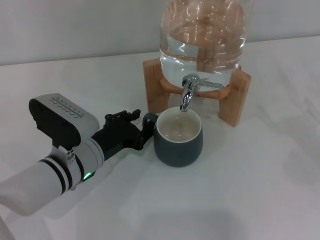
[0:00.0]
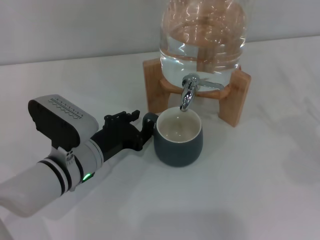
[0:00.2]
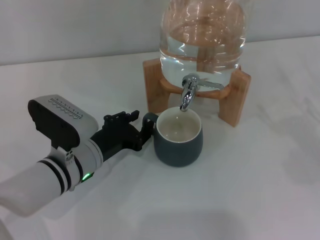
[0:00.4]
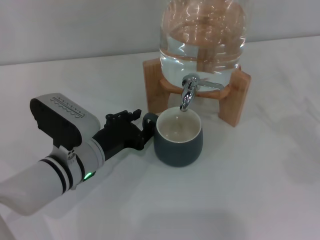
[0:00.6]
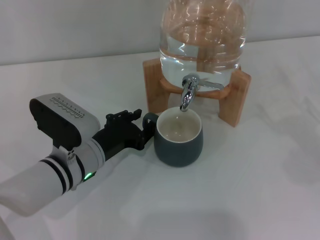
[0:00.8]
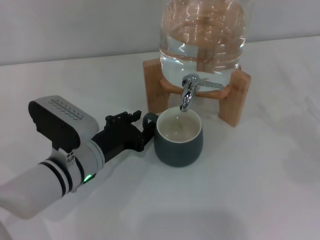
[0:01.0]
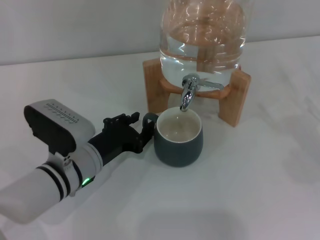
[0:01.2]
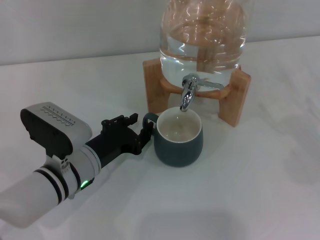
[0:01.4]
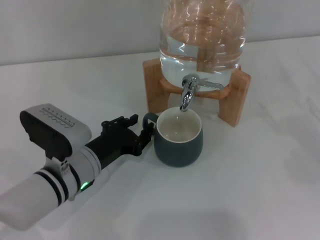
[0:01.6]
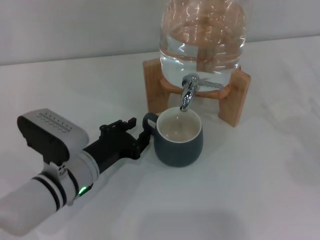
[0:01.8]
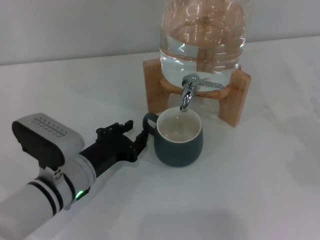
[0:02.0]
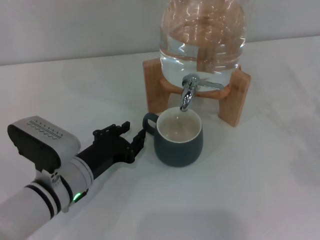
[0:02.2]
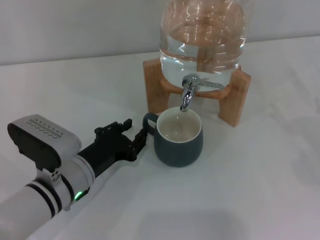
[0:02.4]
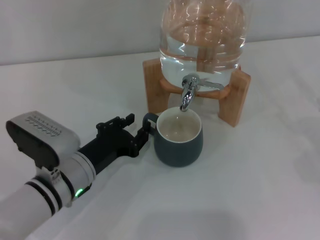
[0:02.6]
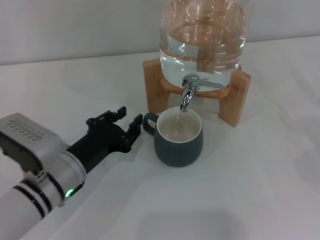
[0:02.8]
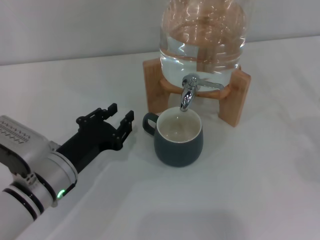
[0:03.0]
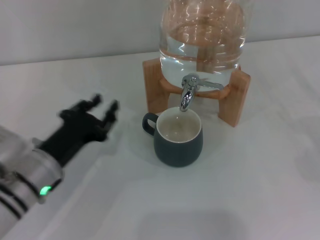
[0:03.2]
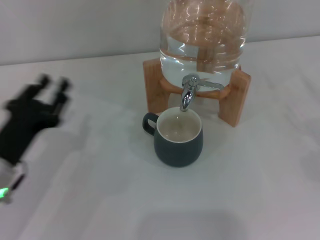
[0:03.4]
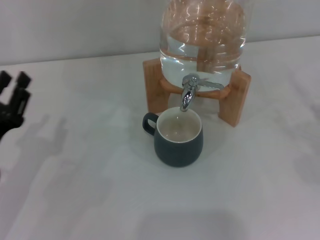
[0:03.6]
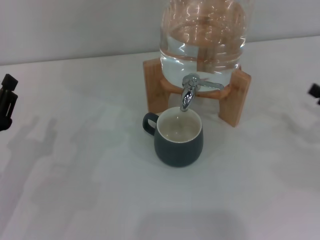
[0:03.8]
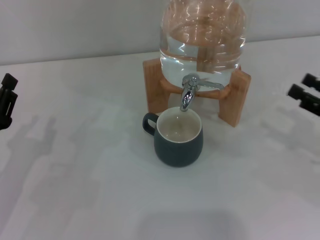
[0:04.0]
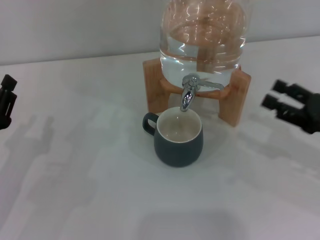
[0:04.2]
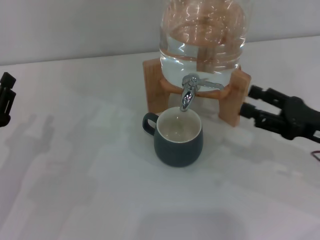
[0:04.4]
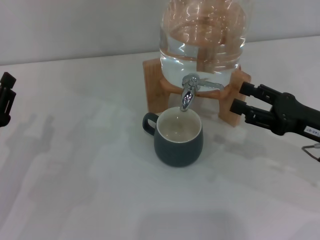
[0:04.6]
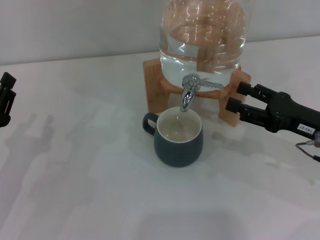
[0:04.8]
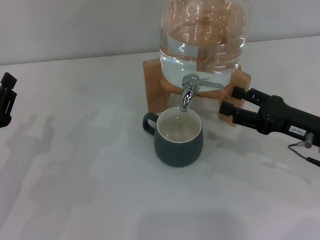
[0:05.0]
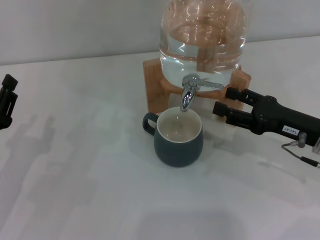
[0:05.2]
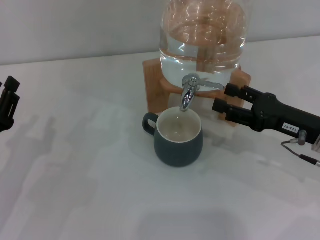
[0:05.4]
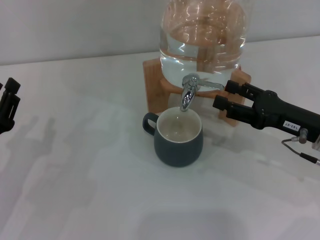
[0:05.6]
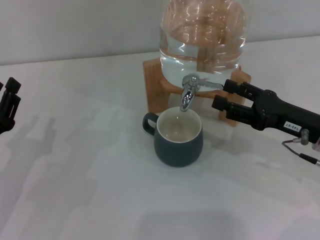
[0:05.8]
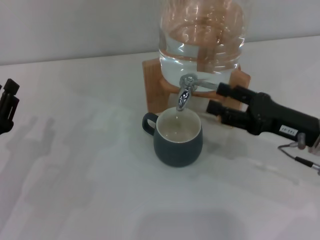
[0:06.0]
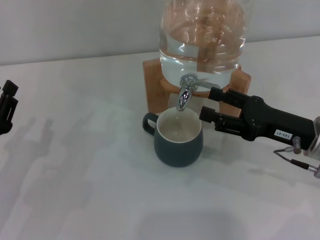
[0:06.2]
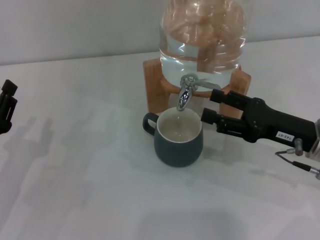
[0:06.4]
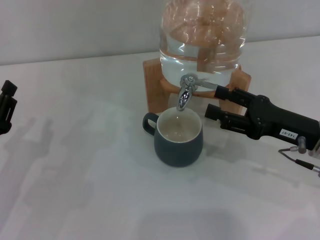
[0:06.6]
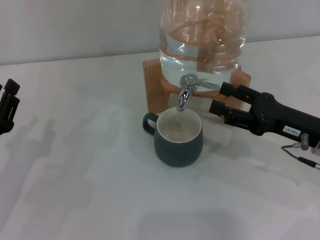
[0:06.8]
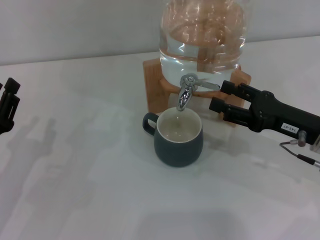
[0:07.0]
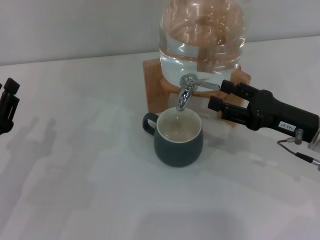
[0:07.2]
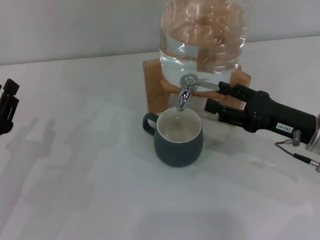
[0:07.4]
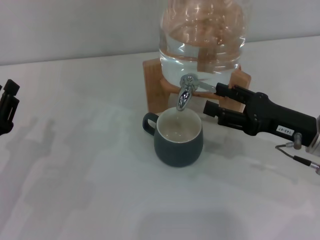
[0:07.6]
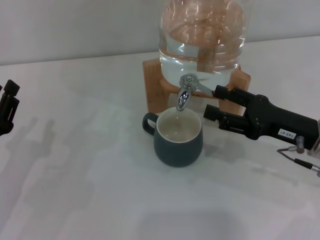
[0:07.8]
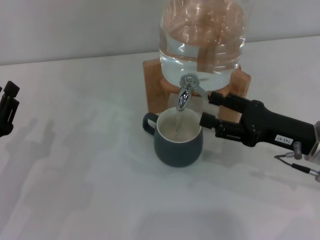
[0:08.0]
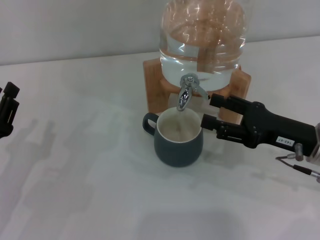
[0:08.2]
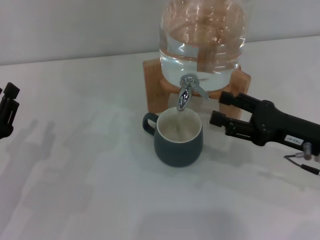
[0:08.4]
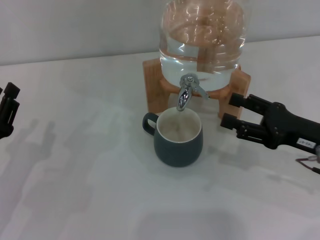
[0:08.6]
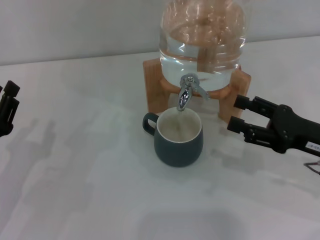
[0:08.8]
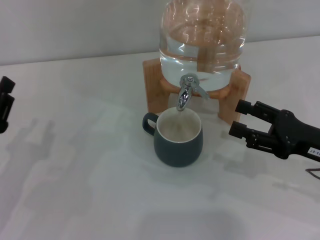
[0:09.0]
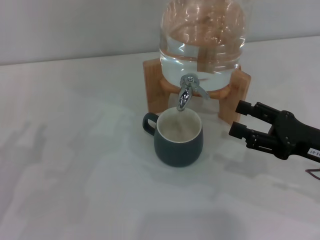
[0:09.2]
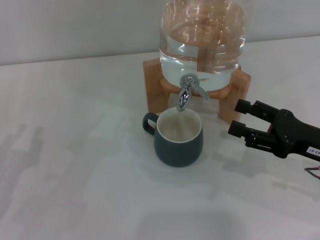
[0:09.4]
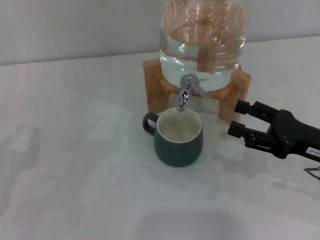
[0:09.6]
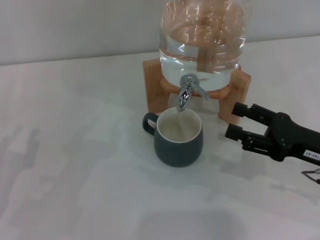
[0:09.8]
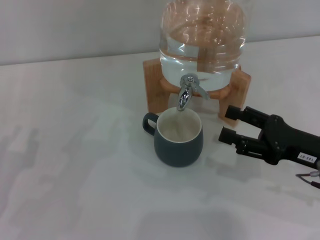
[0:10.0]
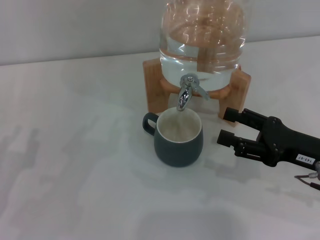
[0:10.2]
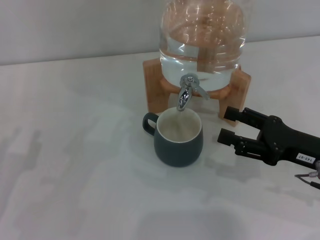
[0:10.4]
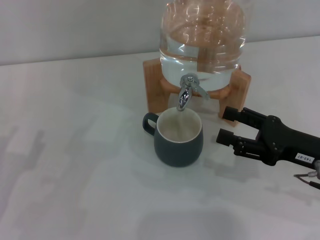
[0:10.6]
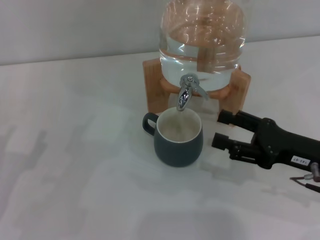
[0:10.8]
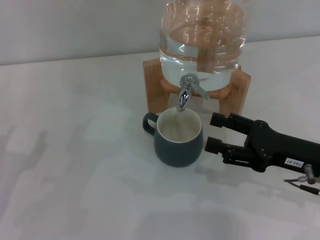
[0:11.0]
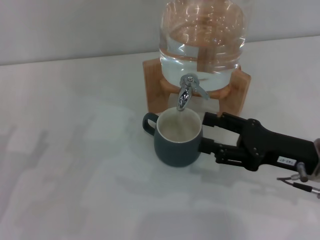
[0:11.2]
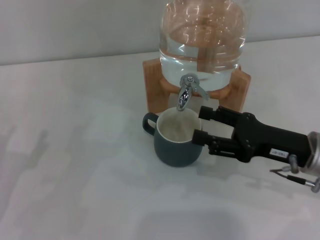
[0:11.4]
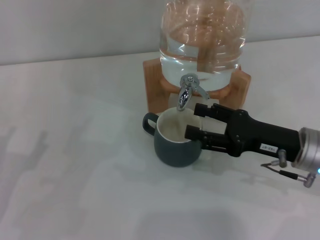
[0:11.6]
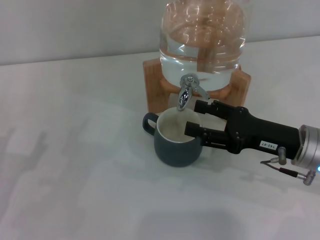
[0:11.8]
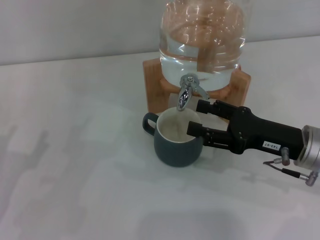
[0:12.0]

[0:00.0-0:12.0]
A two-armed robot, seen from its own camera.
Task of the whole recording: the left gripper pick up the black cup and place it horizontally under the faucet, the right gripper turn on the faucet to fill the cup, and then turn off the faucet.
Step, 0:00.0 to 0:03.0: Move the cup beneath the water dispenser nozzle with the left gripper.
Step, 0:03.2 to 0:12.0: Open the dispenser valve and fill the cup with water with the right gripper.
0:00.0 to 0:03.0: The grippers make only small movements.
0:03.0 to 0:04.4: Both grippers move to the left, approximately 10 cm.
0:04.4 to 0:06.0: The grippers move only a little.
0:06.0 to 0:07.6: The two grippers keep their place.
0:07.6 to 0:10.4: The grippers make only small movements.
0:10.4 to 0:12.0: The left gripper opens up.

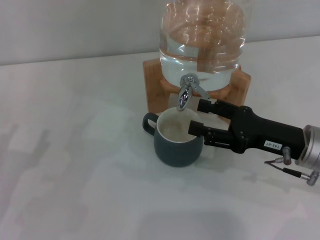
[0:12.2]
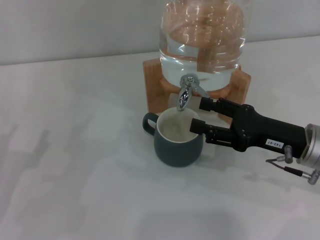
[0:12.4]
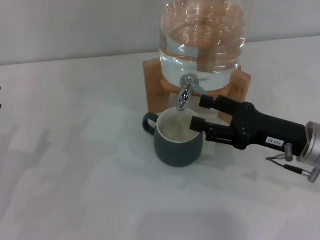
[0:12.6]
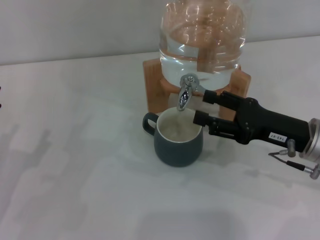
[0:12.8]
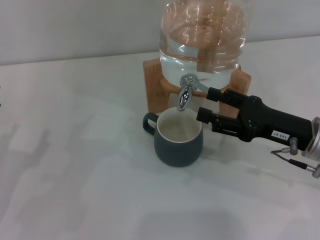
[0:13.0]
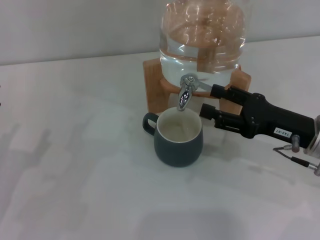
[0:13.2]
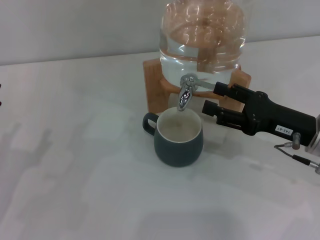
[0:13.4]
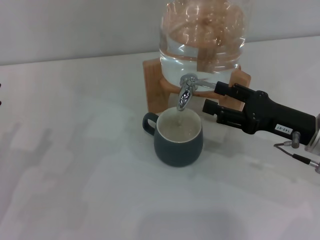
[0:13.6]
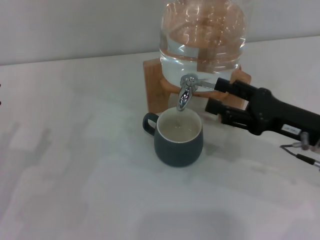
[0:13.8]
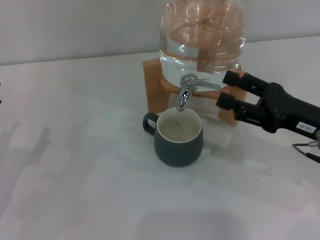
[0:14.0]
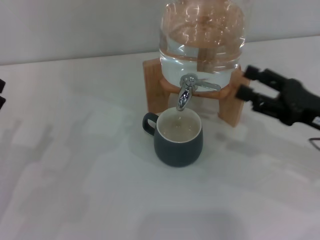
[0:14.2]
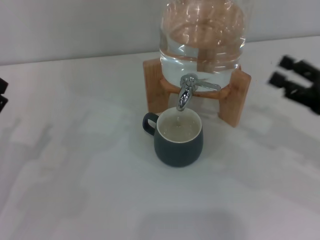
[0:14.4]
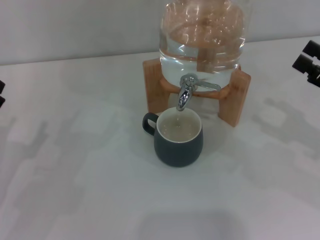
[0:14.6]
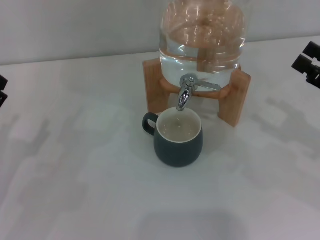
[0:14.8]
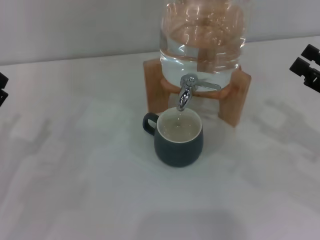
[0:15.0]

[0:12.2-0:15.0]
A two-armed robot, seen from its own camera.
Task of the whole recording: the left gripper pick up the black cup and place it horizontally under the faucet, the right gripper turn on the faucet to fill the cup, and then turn off the faucet.
Step, 0:12.2 to 0:14.0: Close the dispenser valve with the right gripper.
0:12.2 to 0:13.6: The grippers stay close to where they were, moving slightly.
0:13.6 to 0:15.0: The right gripper goes some 10 cm to the right.
